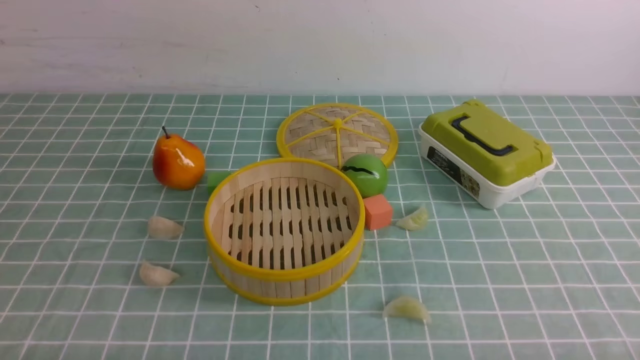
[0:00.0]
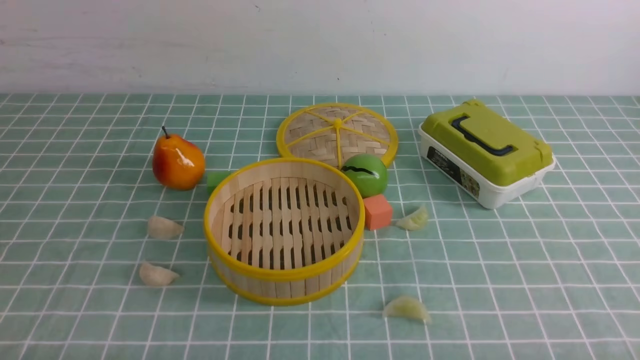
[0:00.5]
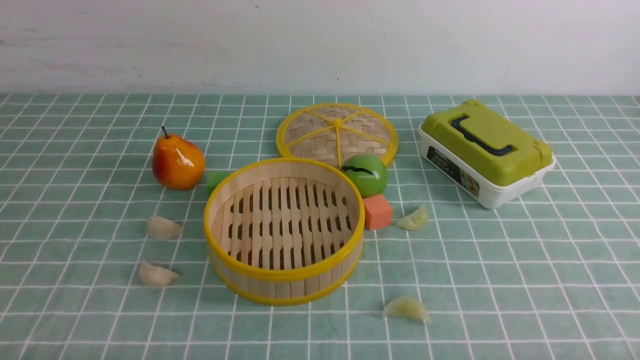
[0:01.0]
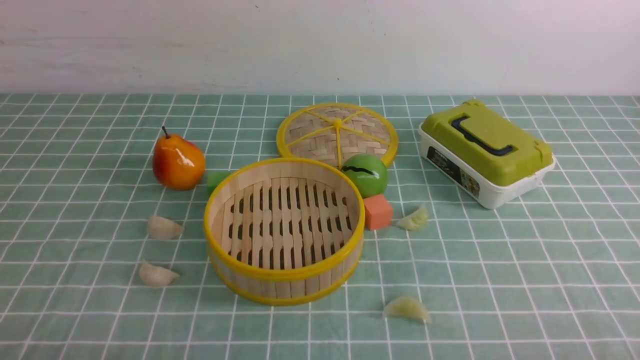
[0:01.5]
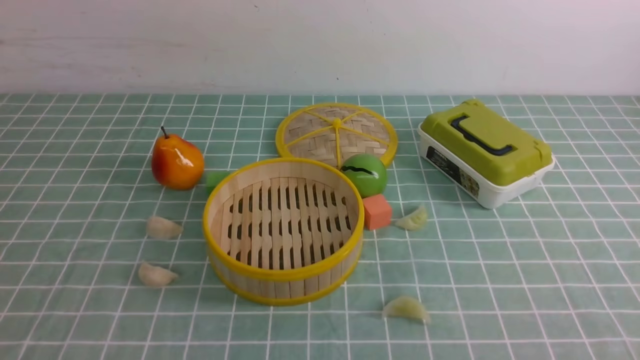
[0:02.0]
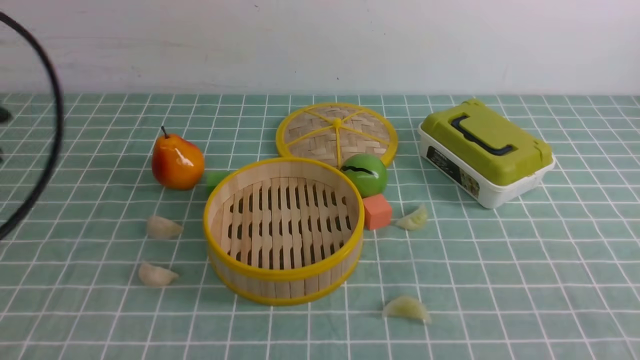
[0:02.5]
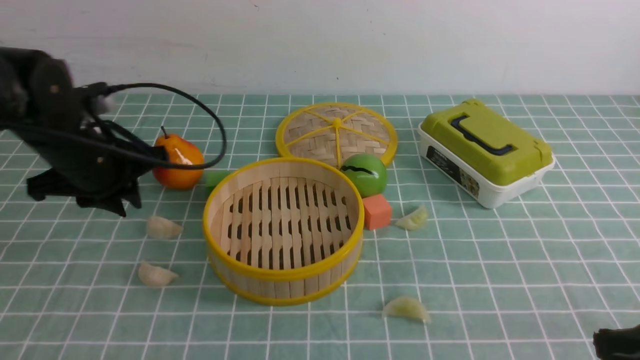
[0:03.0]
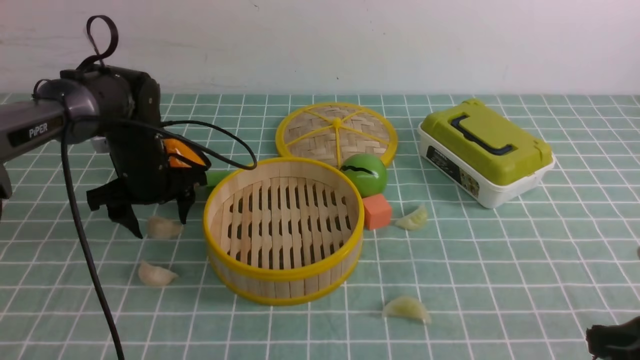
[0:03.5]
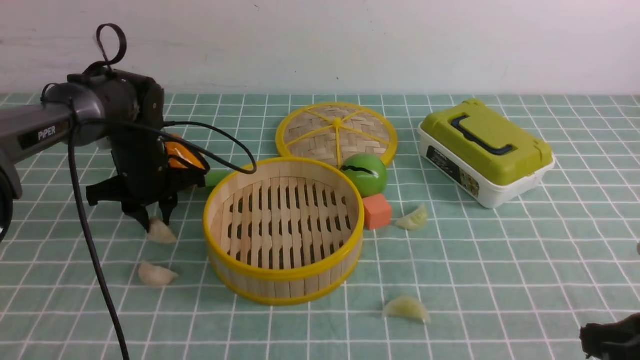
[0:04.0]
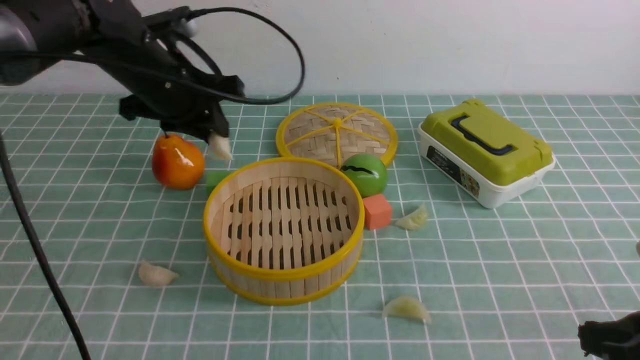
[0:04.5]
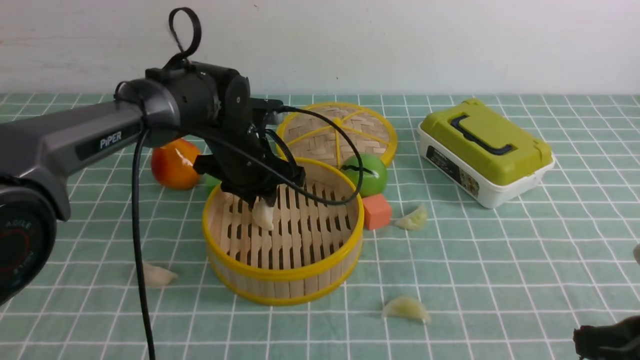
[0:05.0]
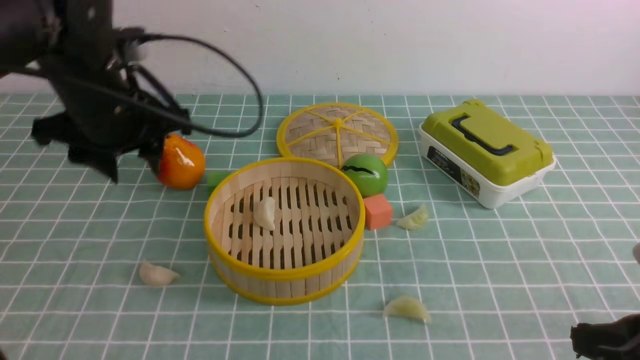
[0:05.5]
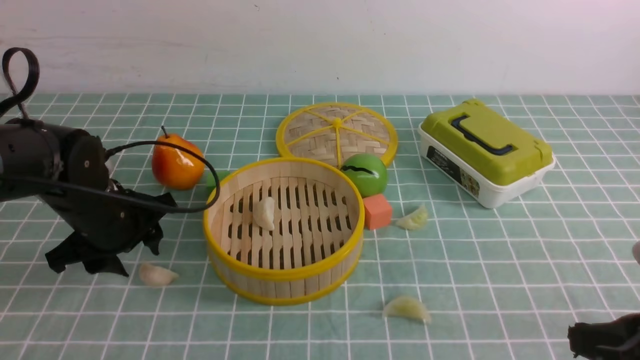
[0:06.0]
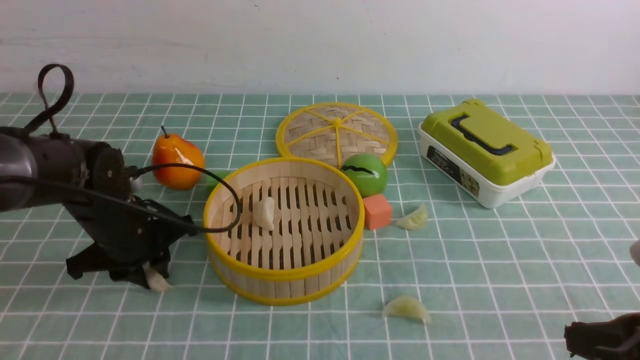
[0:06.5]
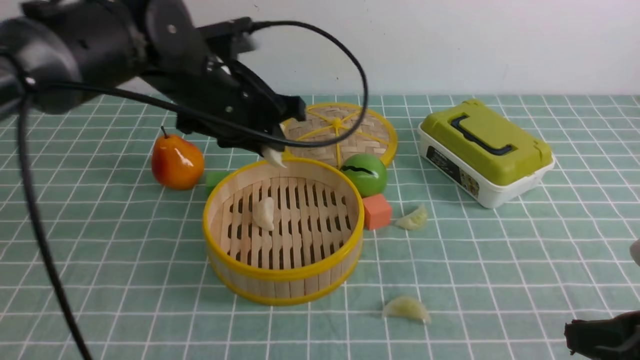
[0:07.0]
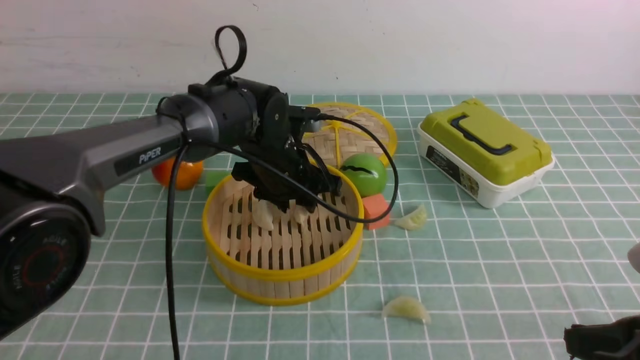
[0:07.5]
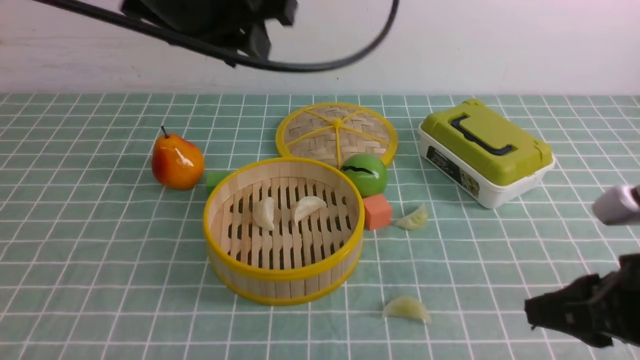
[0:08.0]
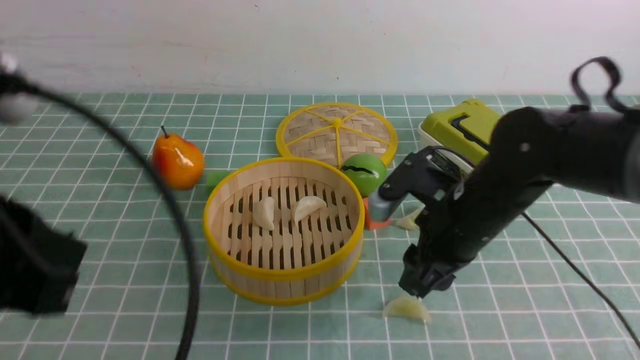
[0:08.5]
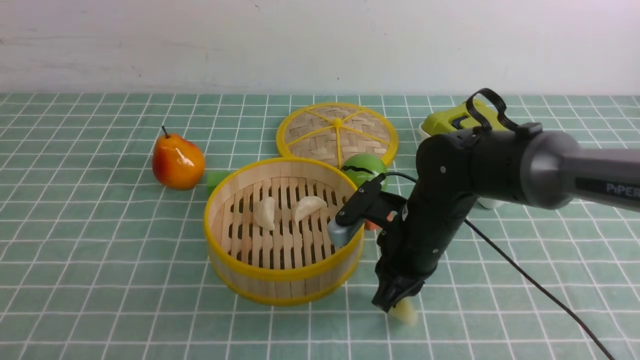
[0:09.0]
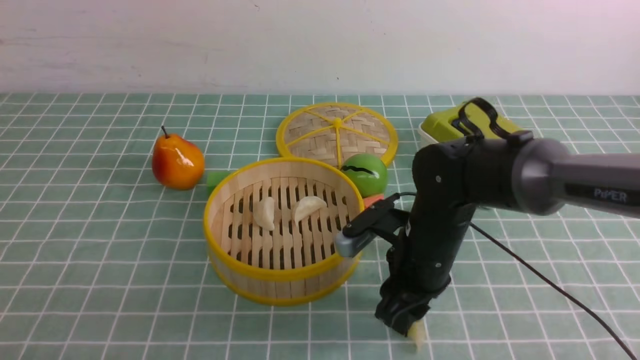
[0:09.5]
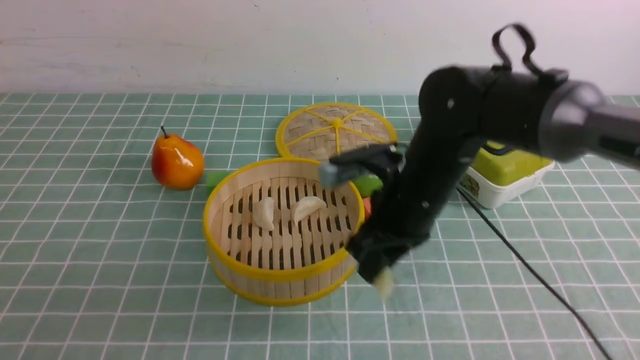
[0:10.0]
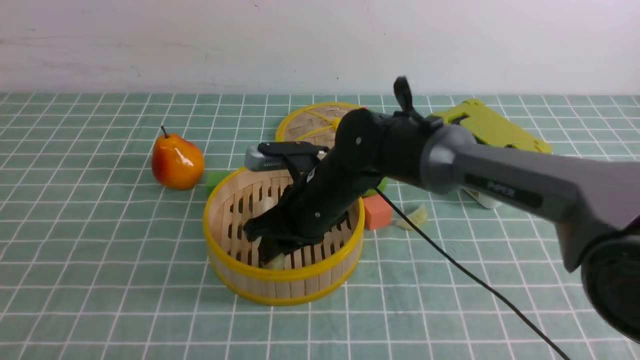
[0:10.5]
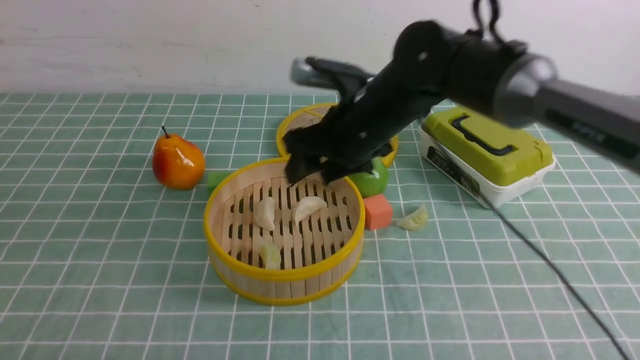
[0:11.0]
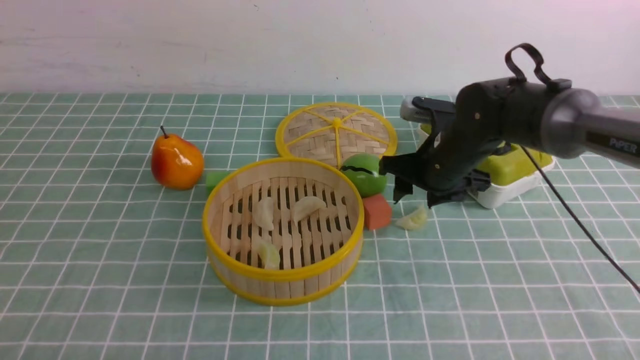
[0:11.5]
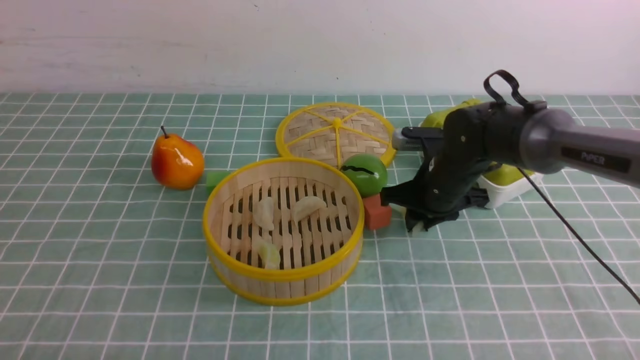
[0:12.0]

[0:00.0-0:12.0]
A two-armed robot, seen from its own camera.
Task of the whole recording: put the dumplings into the steamer on the table with the blue tablecloth.
Step, 0:00.0 to 0:04.0: use the left arm to grab a dumpling.
Step, 0:04.5 to 0:05.0: use the left arm to put the dumpling into the steamer.
Step, 0:05.5 to 0:06.0: use the left arm to grab a dumpling.
Step, 0:06.5 to 0:07.5: use the left arm to put the dumpling into the steamer.
Step, 0:08.0 to 0:09.5: use the right arm to grab a dumpling.
Step, 0:10.0 to 0:10.5: use the right arm to put the dumpling into the steamer.
Step, 0:11.0 to 0:12.0: use the right arm to grab a dumpling.
0:02.0 to 0:04.0: The left gripper travels forward by some 40 cm, and opens, then closes again, while the right gripper shifts roughly 10 cm forward.
0:04.0 to 0:06.0: The left gripper moves backward, about 10 cm, reaches some 10 cm to the right, then returns, and opens its fingers.
0:06.0 to 0:08.0: The right gripper changes place by approximately 5 cm, and opens its fingers, while the left gripper moves up and down over roughly 25 cm, changing direction 2 times.
0:08.0 to 0:10.0: The right gripper is displaced to the left and forward by about 25 cm; the left gripper heads backward, downward and to the left, covering roughly 35 cm, and closes.
0:10.0 to 0:12.0: The right gripper goes approximately 15 cm forward, to the right and downward, and opens, then closes again.

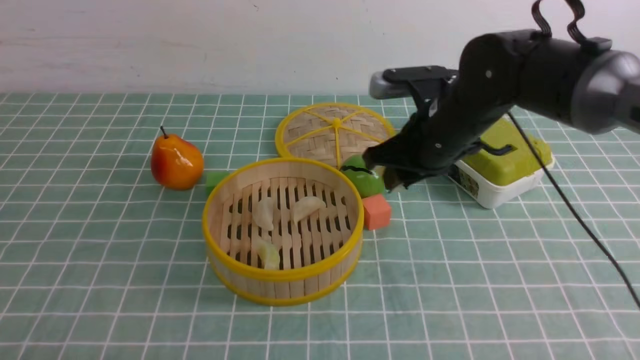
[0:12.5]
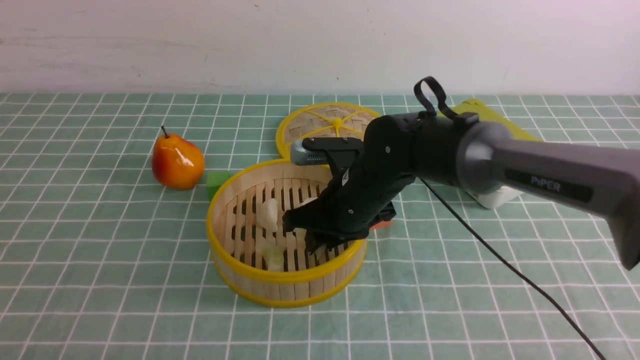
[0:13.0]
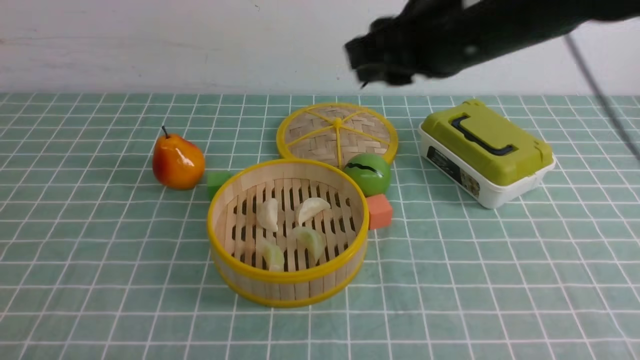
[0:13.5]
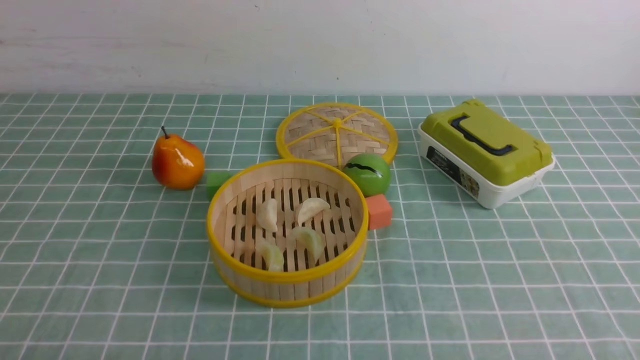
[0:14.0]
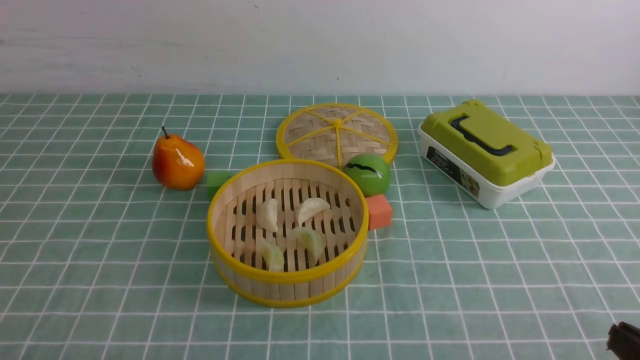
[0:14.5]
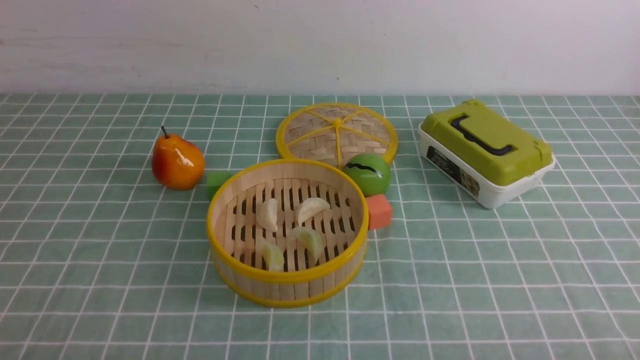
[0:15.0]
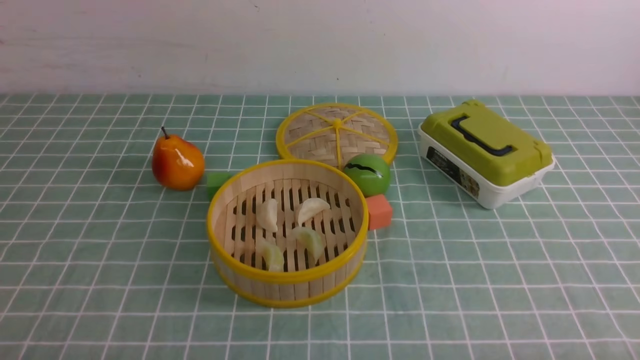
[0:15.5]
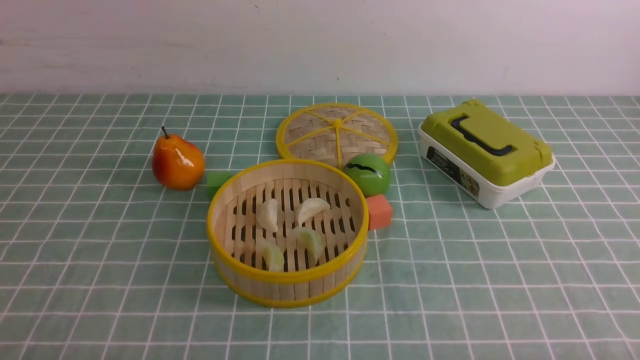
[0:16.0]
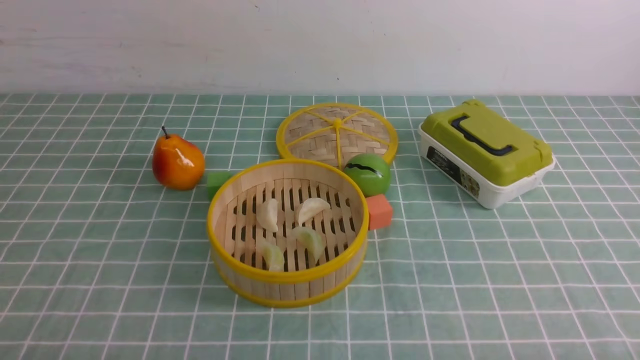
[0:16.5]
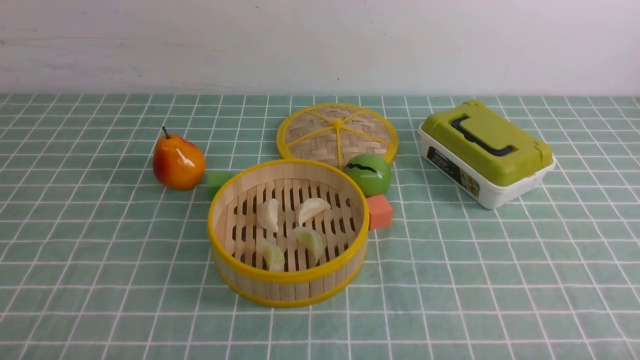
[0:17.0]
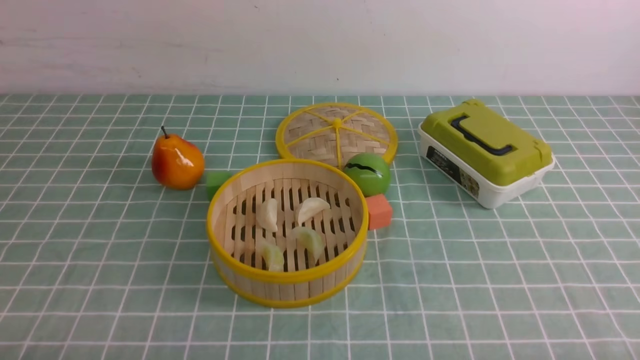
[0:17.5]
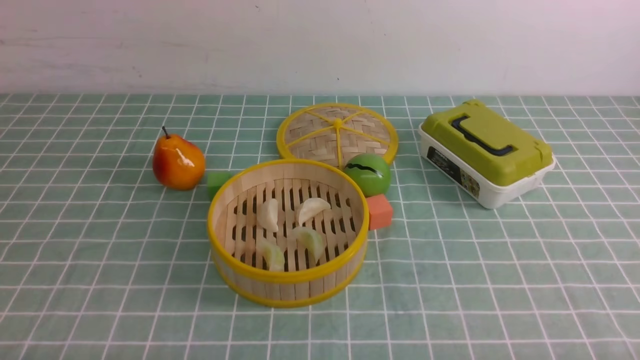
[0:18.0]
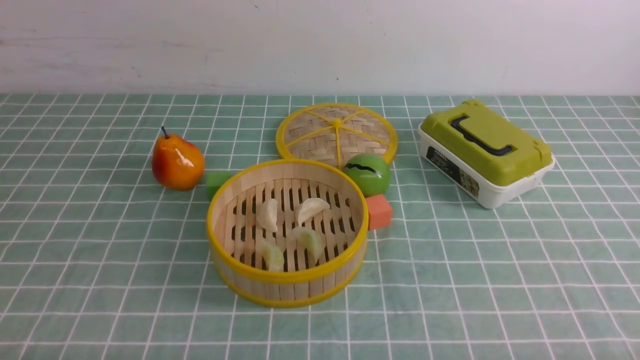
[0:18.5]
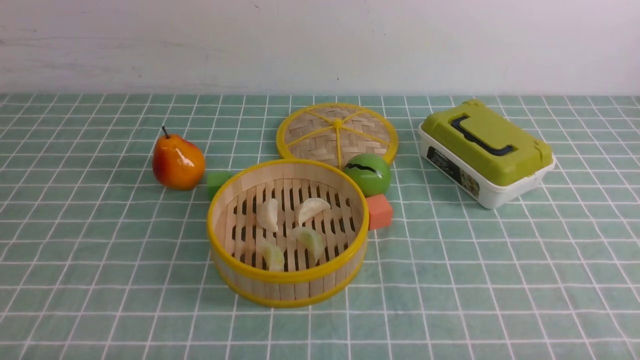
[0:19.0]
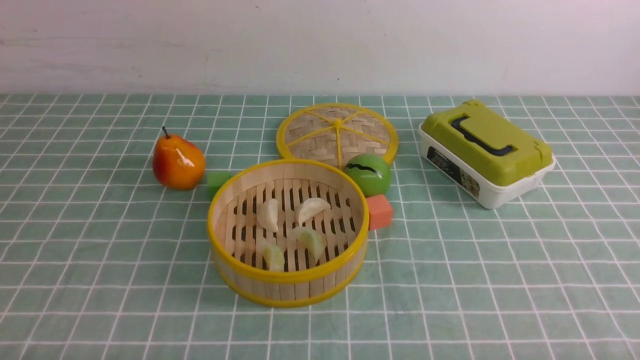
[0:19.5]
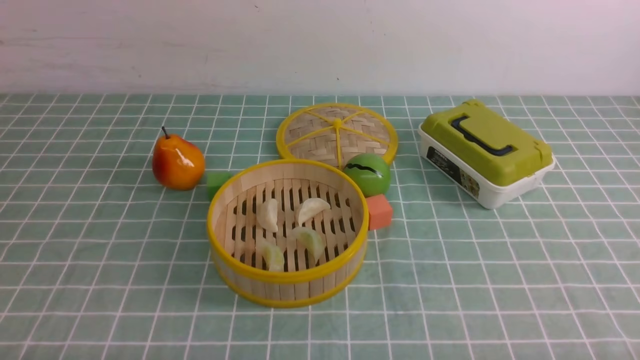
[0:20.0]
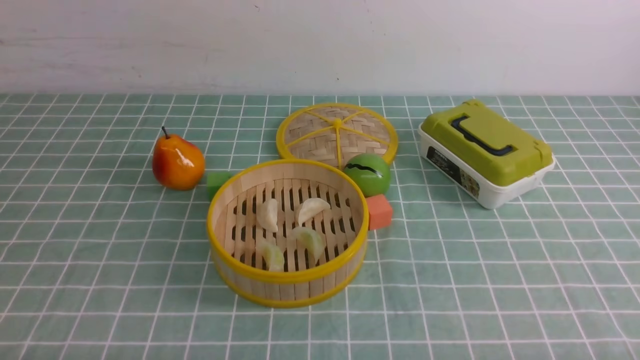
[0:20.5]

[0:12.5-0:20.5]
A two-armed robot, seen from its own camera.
Task of the whole recording: put the dumplings into the steamer on the table with the blue tablecloth.
Step, 0:12.5 to 0:13.0: use the right arm to put the dumpling into the steamer.
0:12.5 to 0:14.5: The right gripper goes some 35 cm backward and to the right, and closes.
0:18.5 to 0:20.5: Both grippers stay about where they are.
